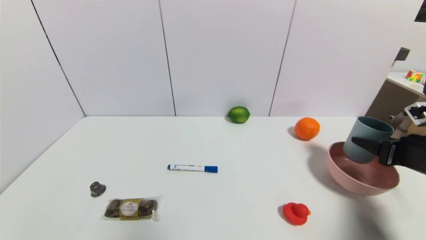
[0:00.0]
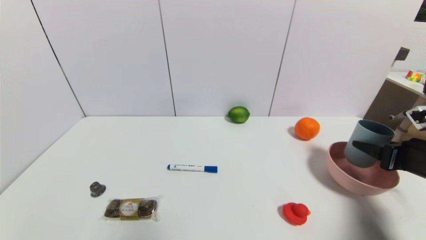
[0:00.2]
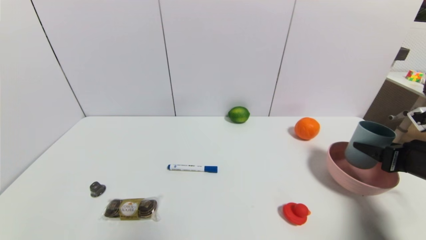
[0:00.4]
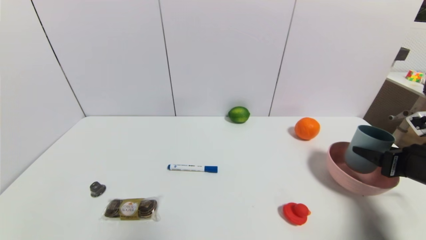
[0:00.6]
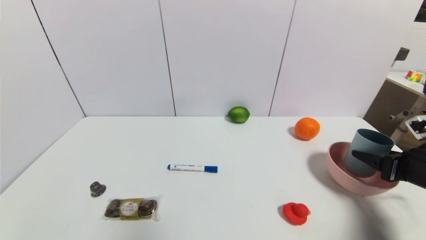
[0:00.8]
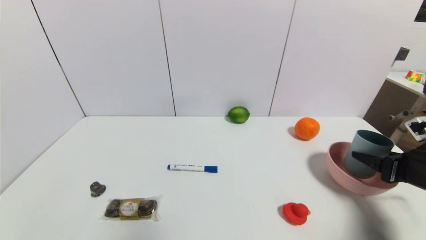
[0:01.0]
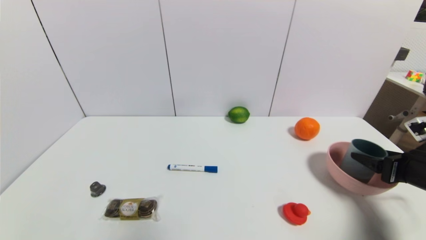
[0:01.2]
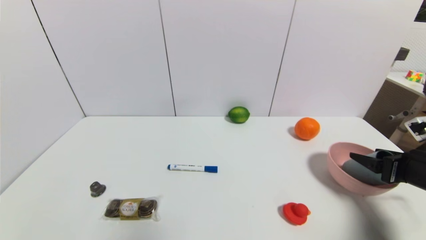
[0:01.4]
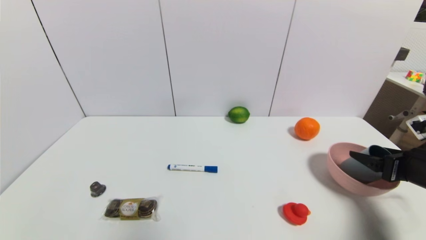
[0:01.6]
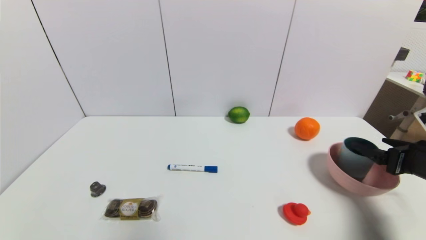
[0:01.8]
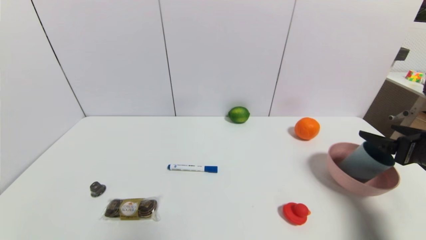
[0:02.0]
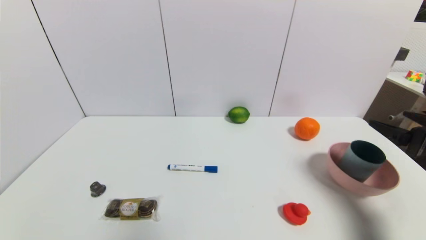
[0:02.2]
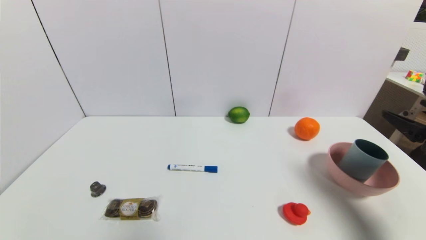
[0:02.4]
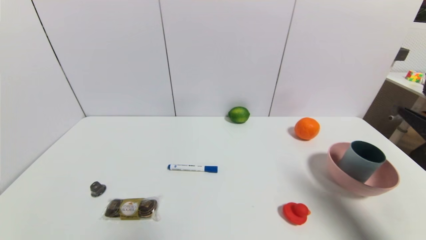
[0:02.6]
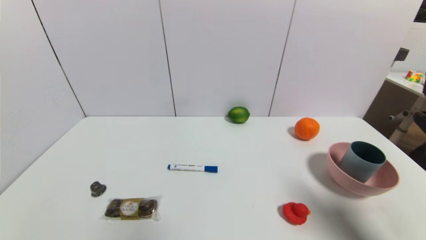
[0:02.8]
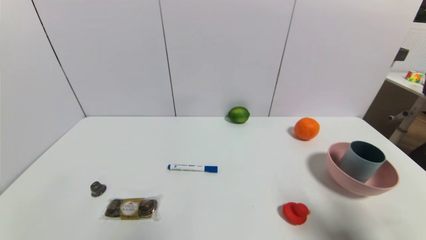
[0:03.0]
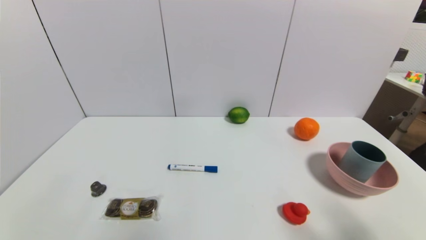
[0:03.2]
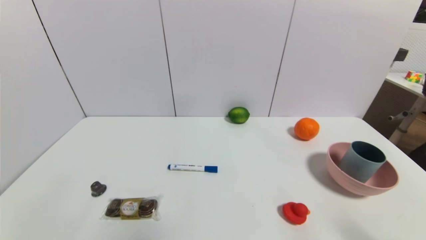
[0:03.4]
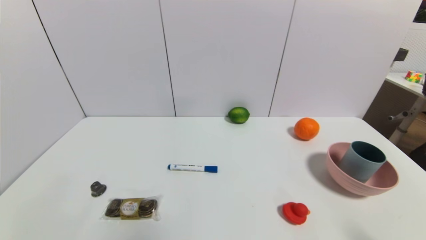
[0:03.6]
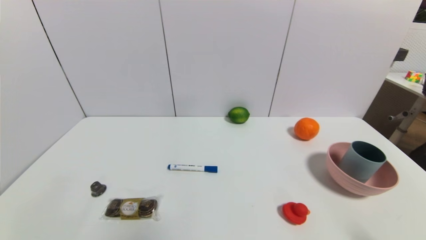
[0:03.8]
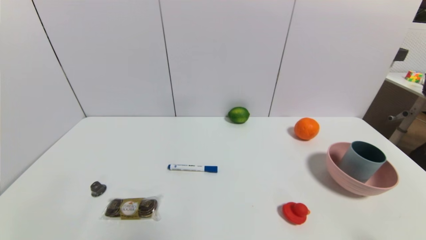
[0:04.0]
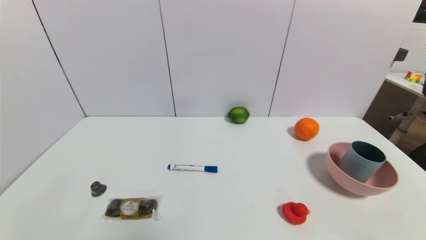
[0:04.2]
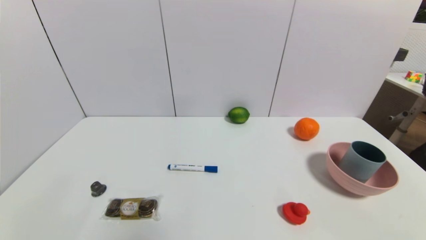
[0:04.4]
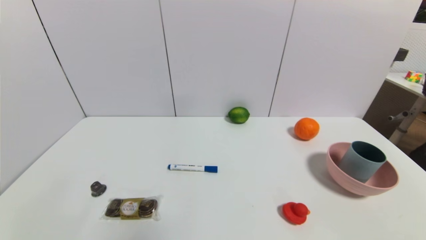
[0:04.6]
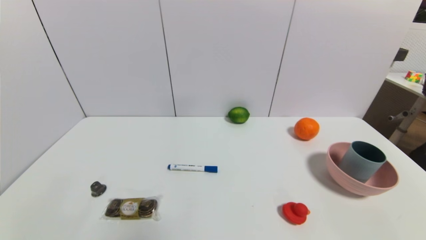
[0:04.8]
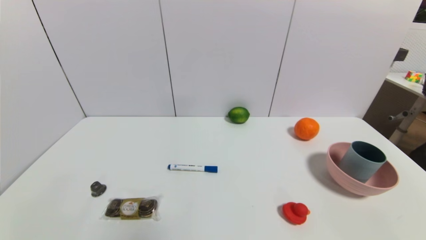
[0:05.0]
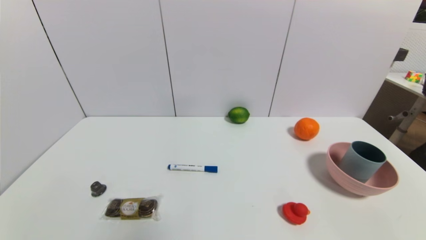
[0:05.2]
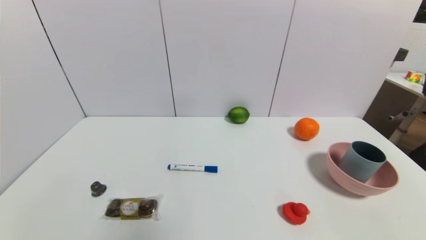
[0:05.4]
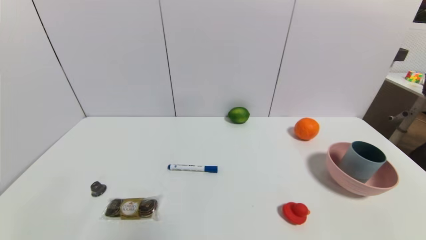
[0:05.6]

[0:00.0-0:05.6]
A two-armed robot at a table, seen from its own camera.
Task of the whole recording: use a gripper to pick the target object and place on the pink bowl.
0:00.0 to 0:01.4: The right gripper opens.
0:01.4 to 0:02.8: The right gripper travels backward and upward by approximately 15 cm, and opens its fingers.
0:02.8 to 0:04.2: The right gripper shifts roughly 15 cm backward and downward.

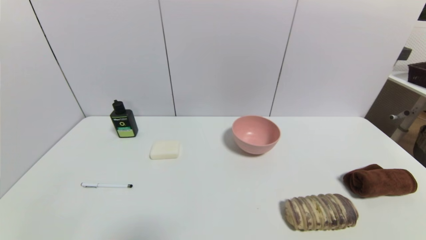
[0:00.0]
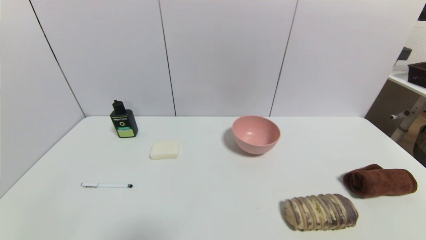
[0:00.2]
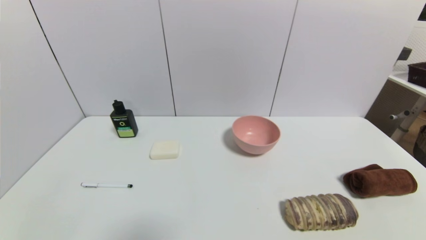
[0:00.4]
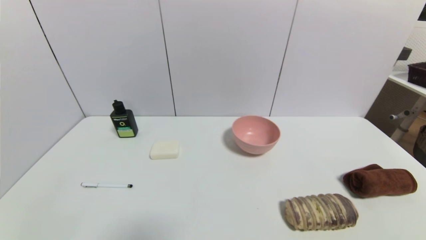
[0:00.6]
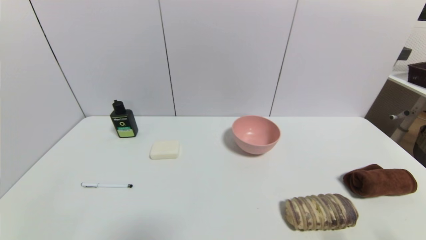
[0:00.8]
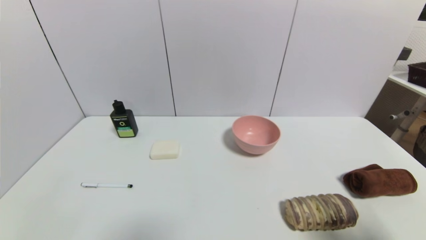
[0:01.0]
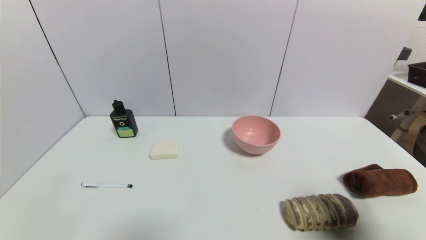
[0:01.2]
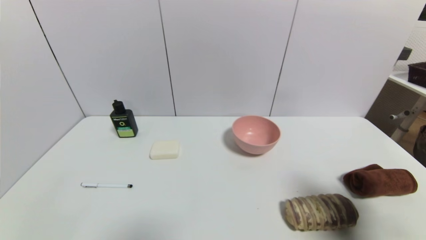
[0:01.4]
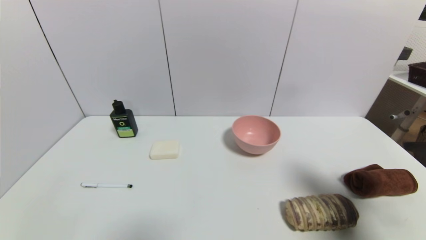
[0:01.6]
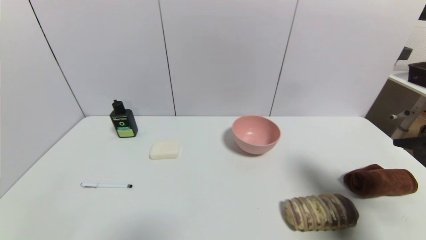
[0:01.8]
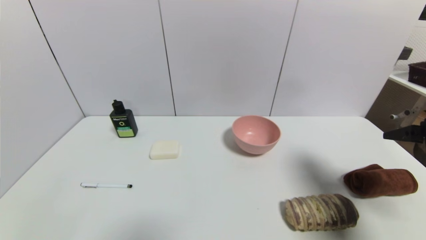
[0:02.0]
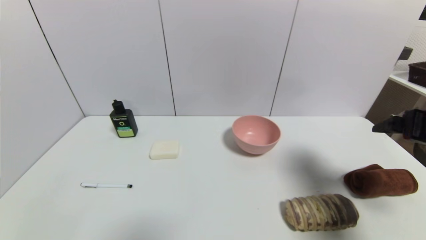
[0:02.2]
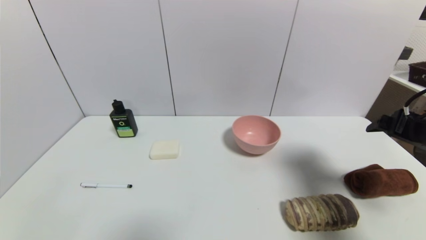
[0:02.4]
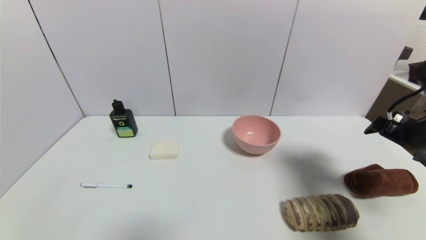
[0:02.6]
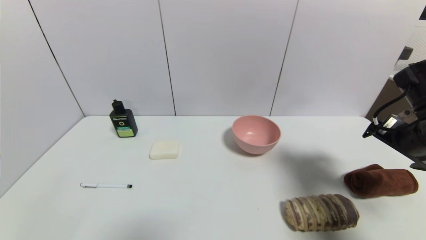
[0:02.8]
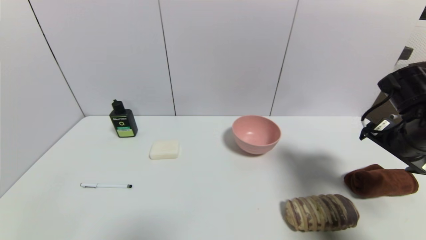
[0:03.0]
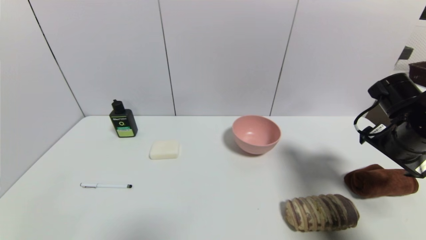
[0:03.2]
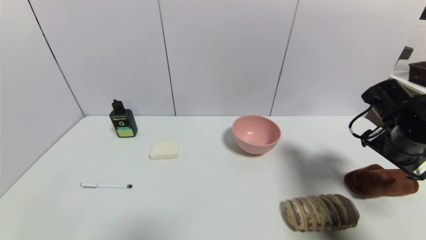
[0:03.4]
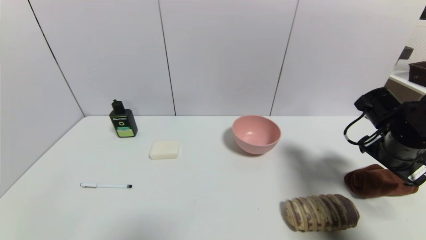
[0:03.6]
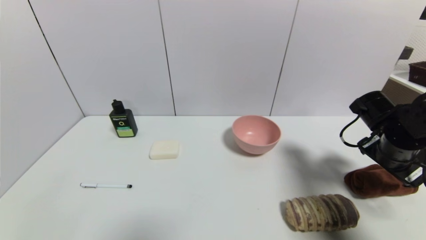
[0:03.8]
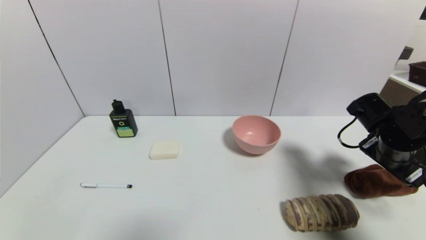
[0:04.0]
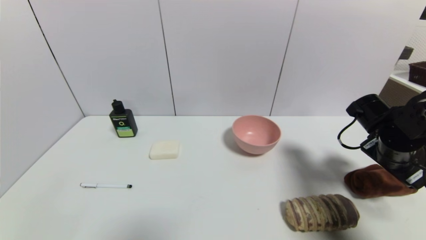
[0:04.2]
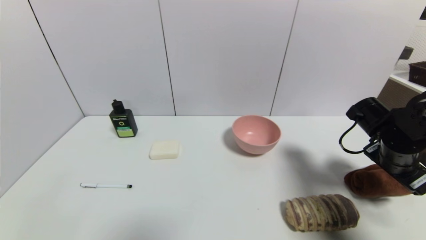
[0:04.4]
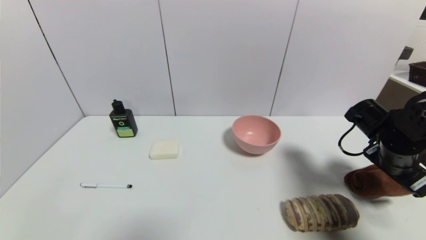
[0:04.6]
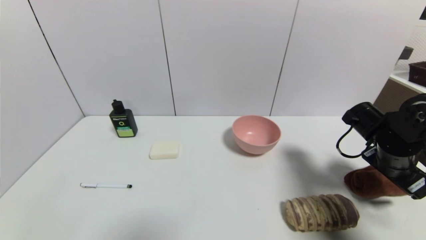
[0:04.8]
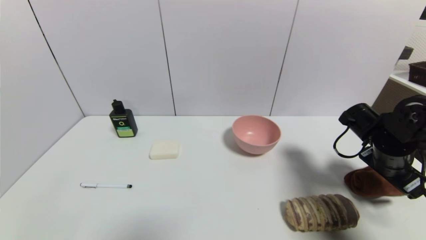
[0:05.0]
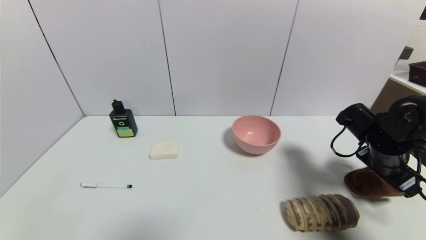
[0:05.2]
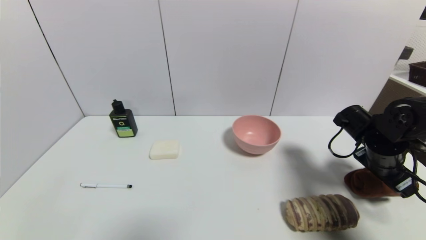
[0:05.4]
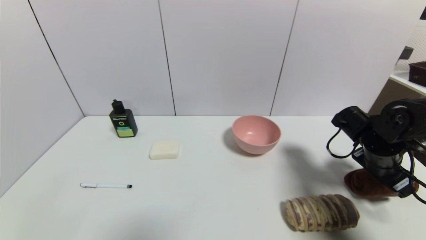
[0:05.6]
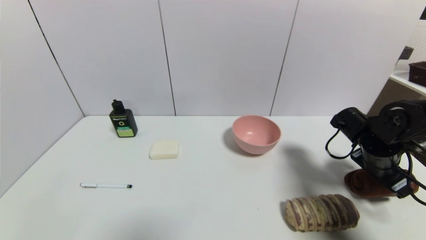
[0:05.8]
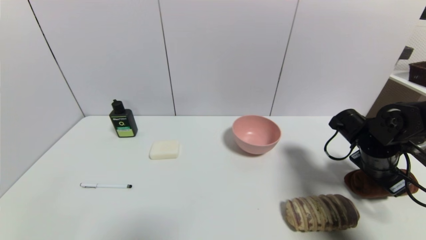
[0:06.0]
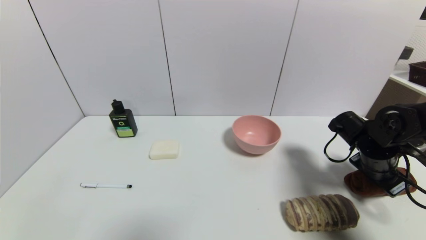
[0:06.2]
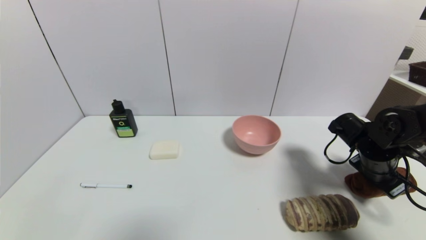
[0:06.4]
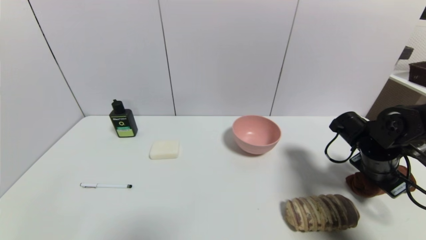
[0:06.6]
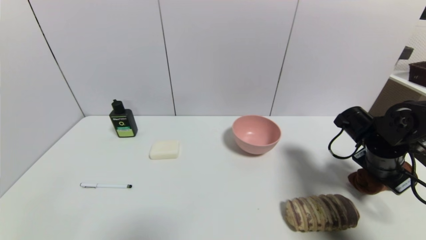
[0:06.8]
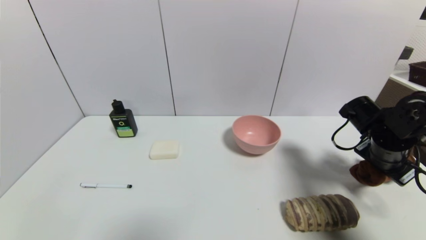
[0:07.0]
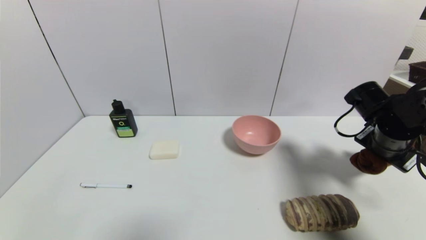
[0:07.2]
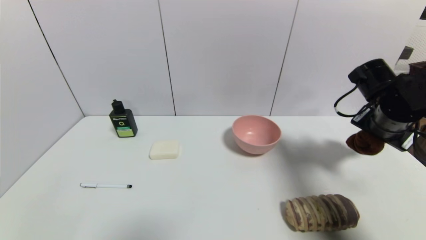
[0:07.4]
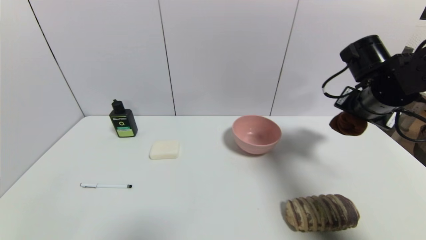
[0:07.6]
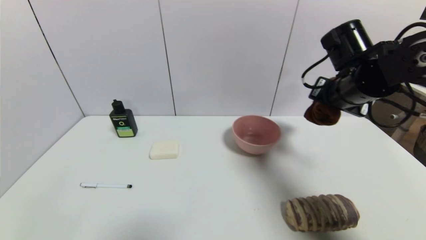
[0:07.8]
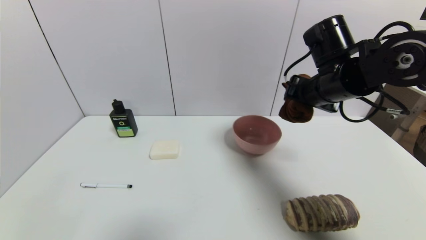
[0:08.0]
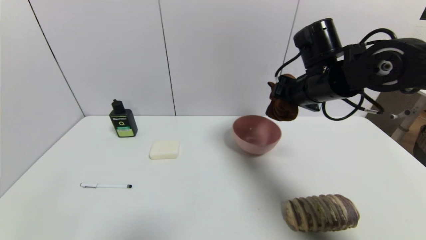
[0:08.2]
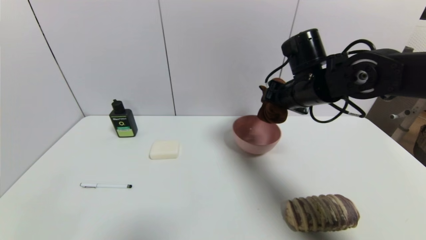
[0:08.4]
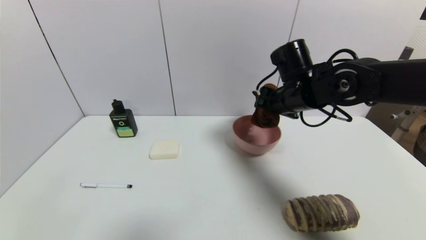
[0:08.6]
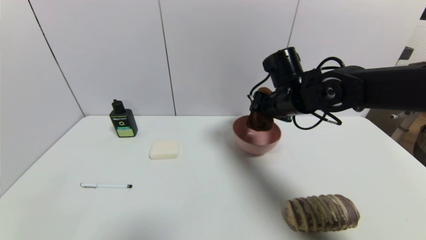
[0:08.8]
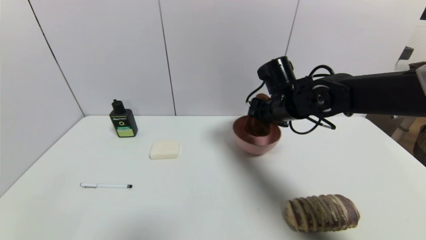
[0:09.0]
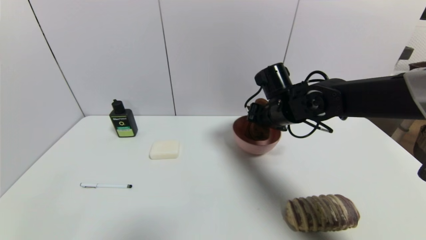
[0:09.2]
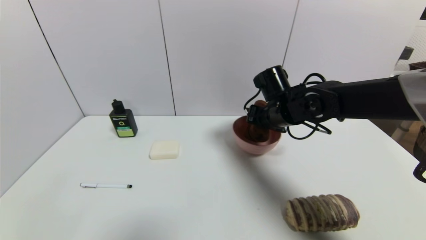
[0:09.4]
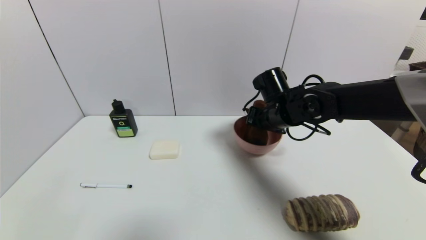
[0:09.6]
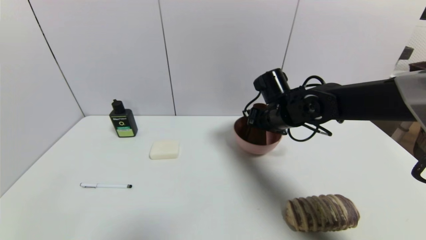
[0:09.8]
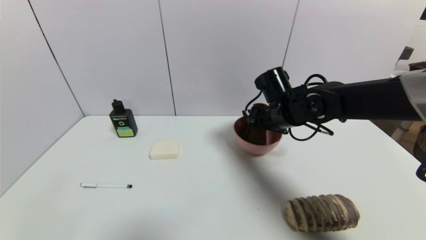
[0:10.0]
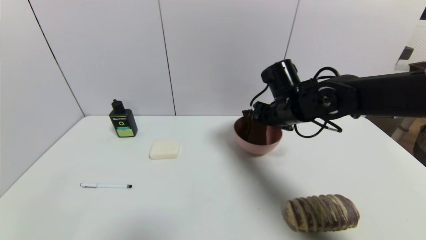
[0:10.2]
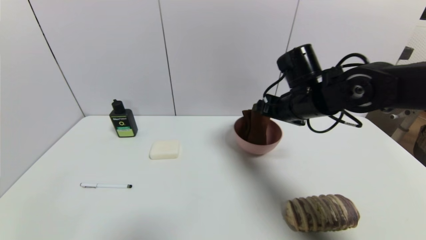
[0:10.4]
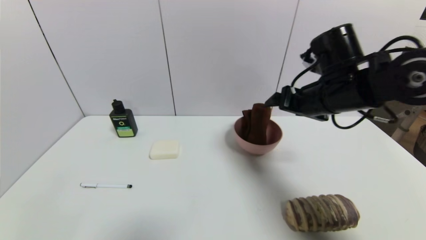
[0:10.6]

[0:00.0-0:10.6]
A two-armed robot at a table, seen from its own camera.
Task of the whole recording: use a gripper to pick the target object and place on the pink bowl.
Step, 0:00.0 to 0:06.6: Grasp the brown towel with the right gripper.
Step, 0:06.8 to 0:10.0: Place the brown towel on the pink bowl with the right gripper.
0:00.0 to 0:01.6: The right gripper moves upward and forward, approximately 25 cm.
0:01.6 to 0:03.0: The right gripper moves forward and downward, roughly 15 cm.
0:03.0 to 0:04.6: The right gripper moves downward, some 5 cm.
0:04.6 to 0:06.0: The grippers stay close to where they were, moving slightly.
0:06.0 to 0:07.6: The right gripper moves upward, approximately 15 cm, and closes up.
0:07.6 to 0:09.0: The right gripper travels to the left by about 15 cm.
0:09.0 to 0:10.6: The right gripper shifts about 10 cm backward, to the right and upward, and opens its fingers.
